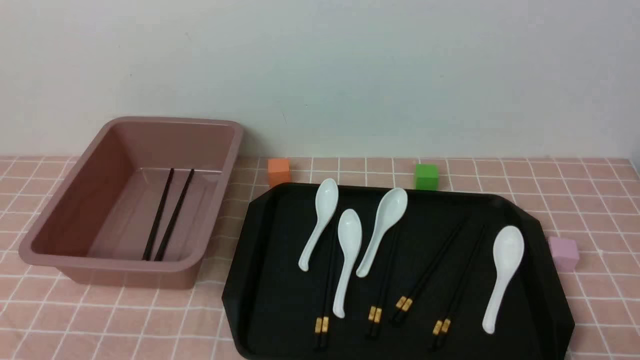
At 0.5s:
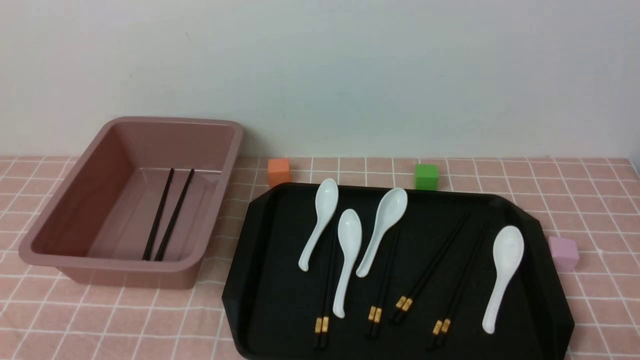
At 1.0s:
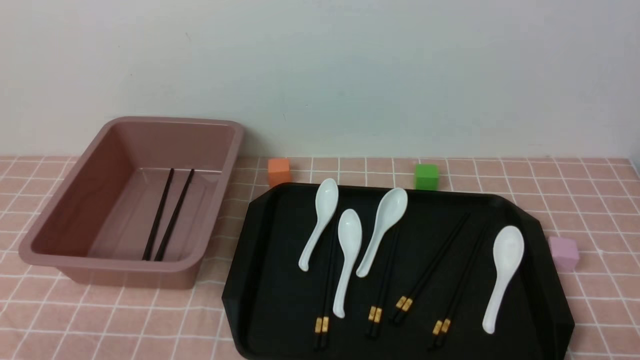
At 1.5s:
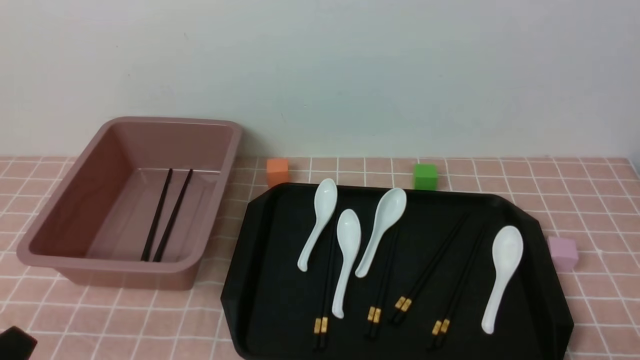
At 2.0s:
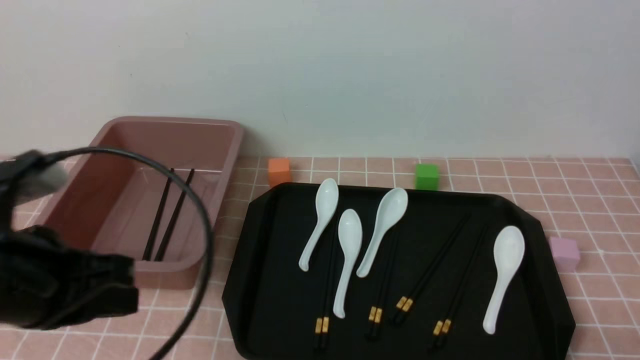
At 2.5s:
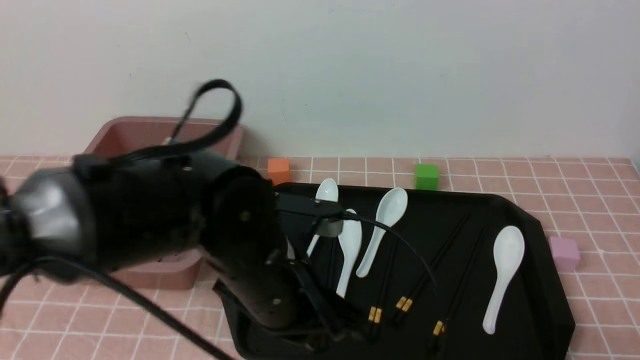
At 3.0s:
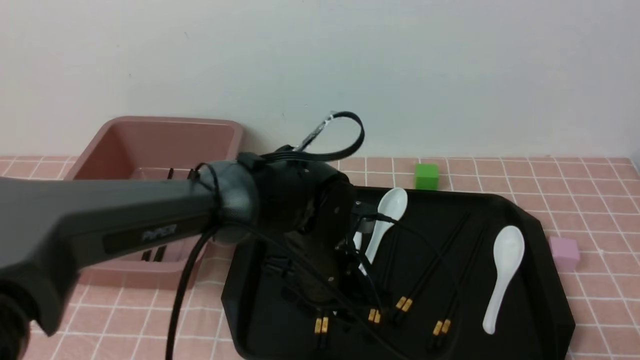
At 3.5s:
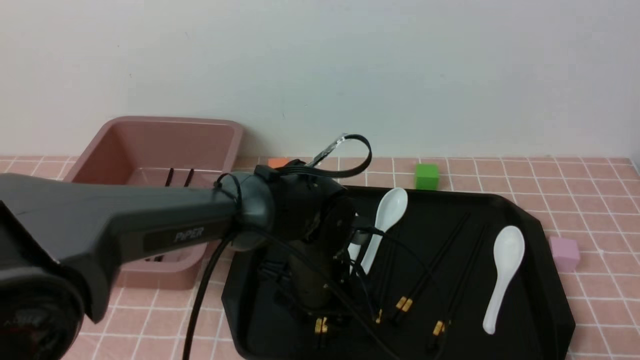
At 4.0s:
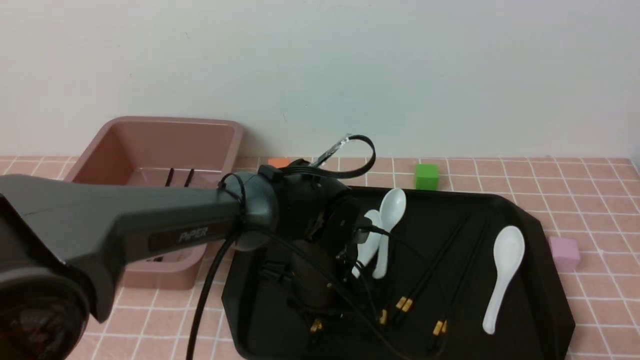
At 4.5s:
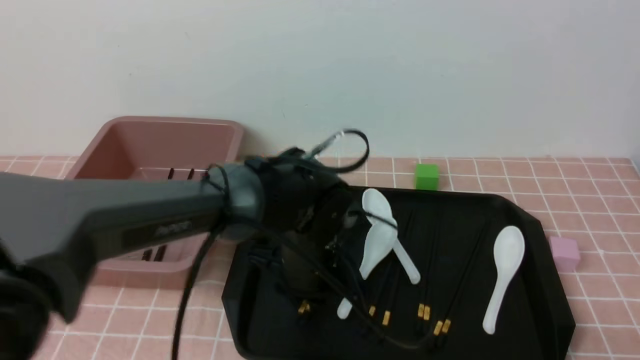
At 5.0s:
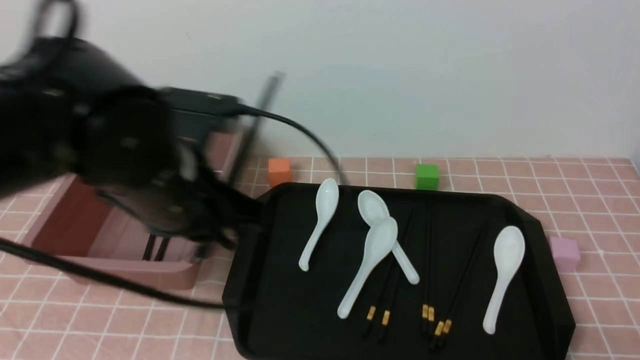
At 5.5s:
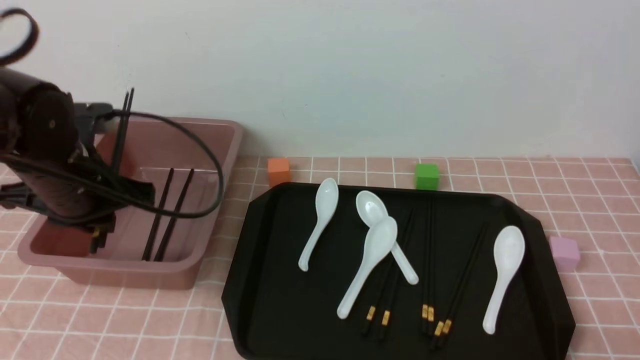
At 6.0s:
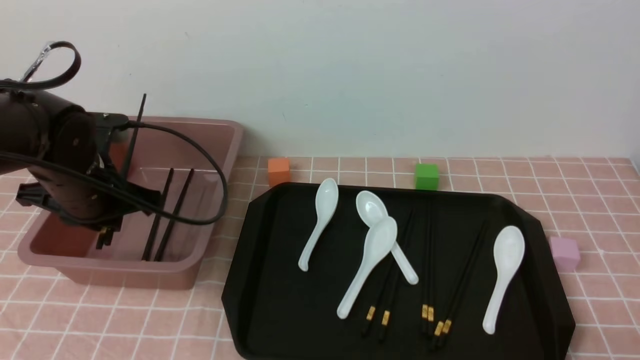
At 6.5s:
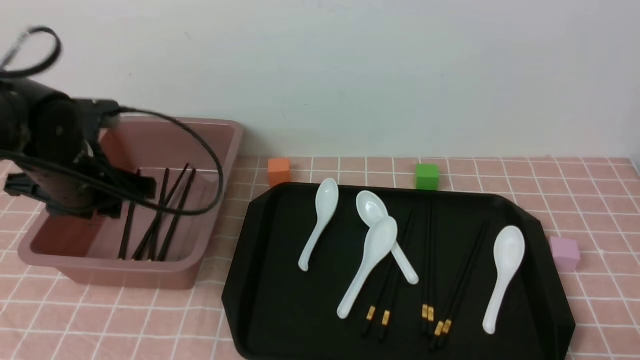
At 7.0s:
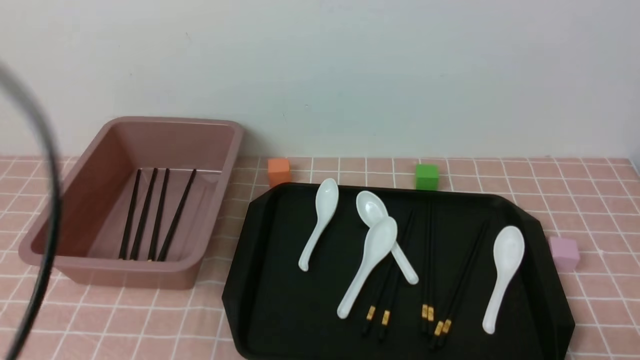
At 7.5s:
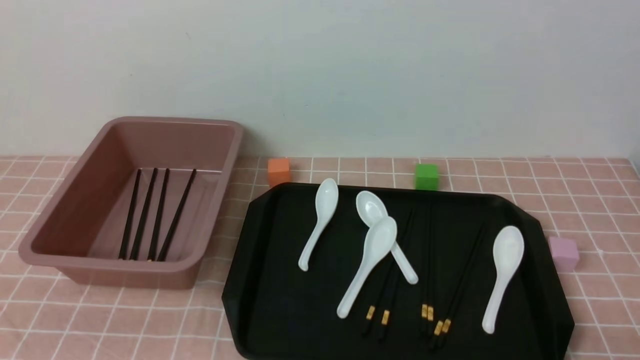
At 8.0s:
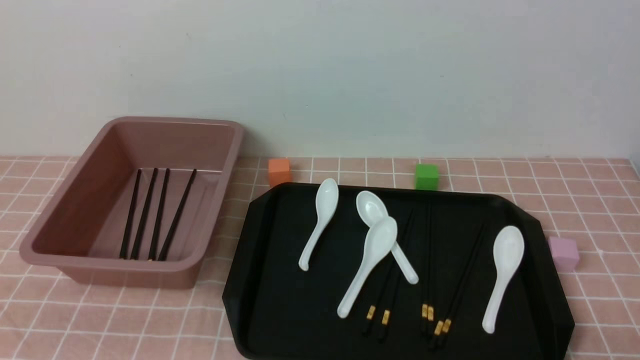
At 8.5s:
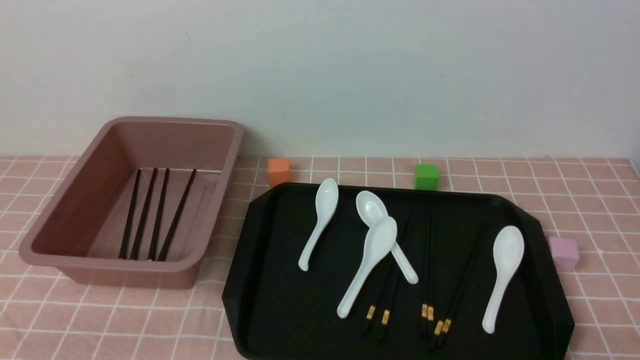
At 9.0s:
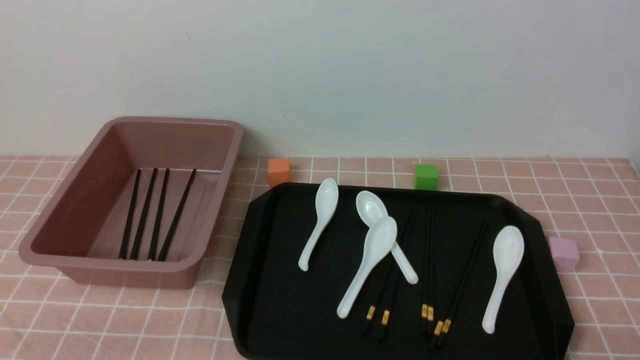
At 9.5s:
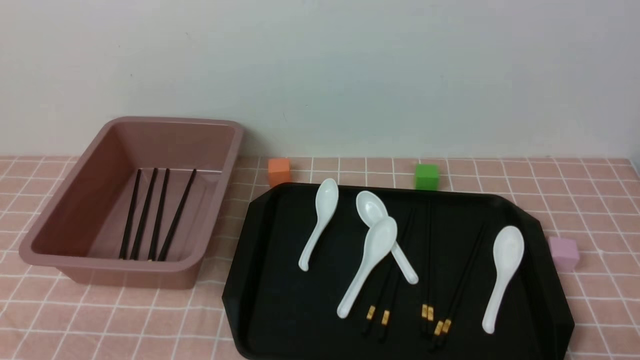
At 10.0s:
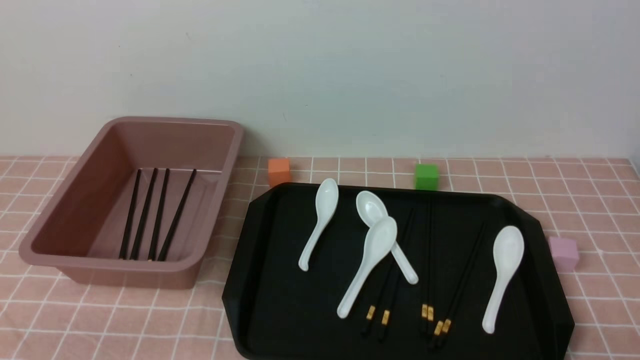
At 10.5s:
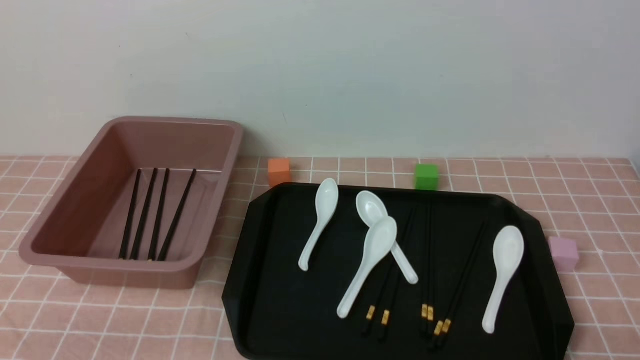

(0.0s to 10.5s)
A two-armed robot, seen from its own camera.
Step, 0.0s - 4.5s: use the left arm to grab a pair of chopsticks.
Step, 5.0s - 6.5s: use the left arm to put the chopsticks into the lunch box.
2.0s - 4.0s: The left gripper heads to the right, forward and downward, covering some 30 cm, and opens.
4.0s - 6.5s: The left gripper shifts about 25 cm to the left and upward.
6.5s - 8.5s: The left gripper moves backward, some 30 cm, and closes up.
8.5s - 10.5s: The two grippers keep their place.
